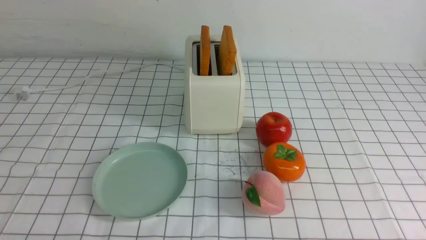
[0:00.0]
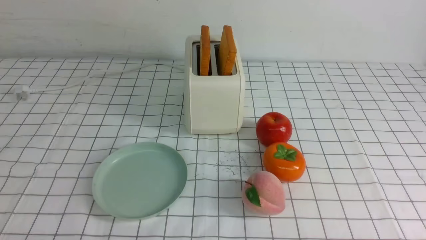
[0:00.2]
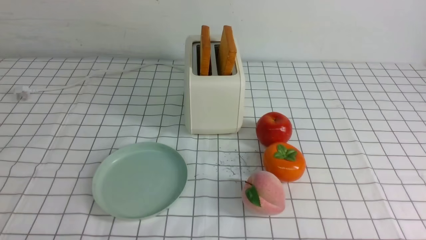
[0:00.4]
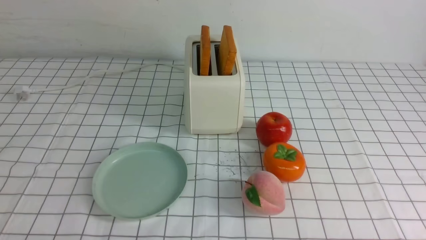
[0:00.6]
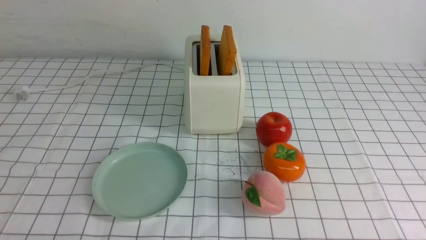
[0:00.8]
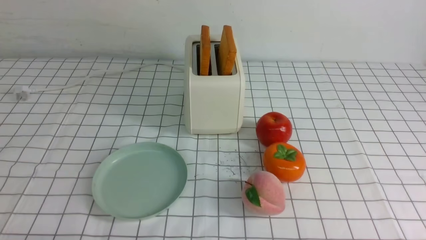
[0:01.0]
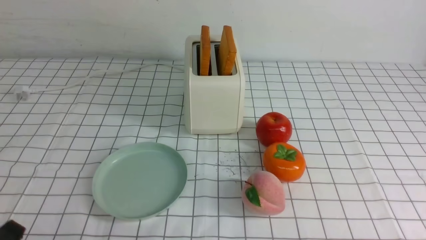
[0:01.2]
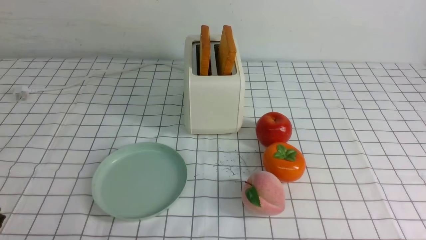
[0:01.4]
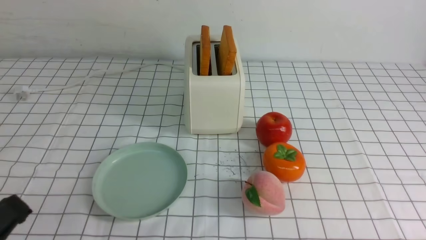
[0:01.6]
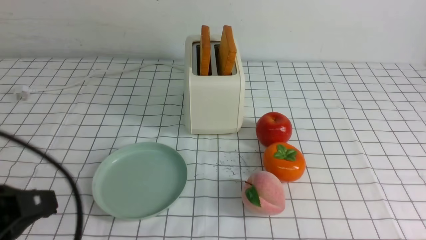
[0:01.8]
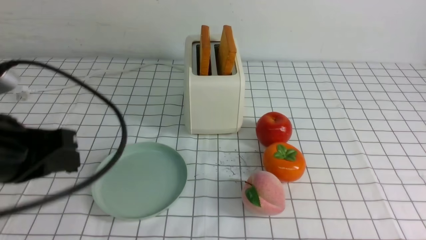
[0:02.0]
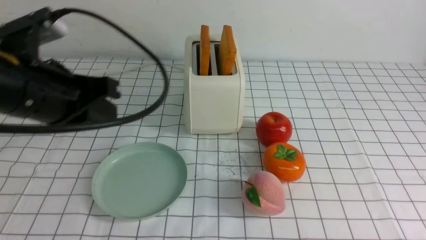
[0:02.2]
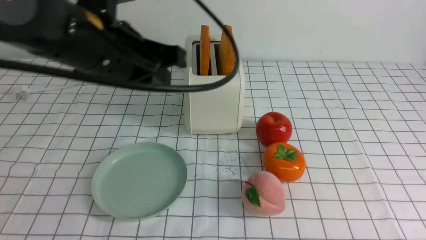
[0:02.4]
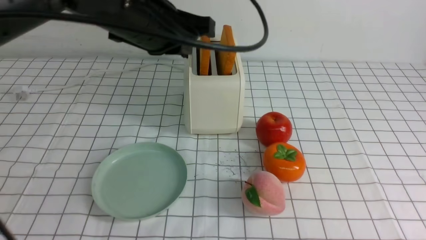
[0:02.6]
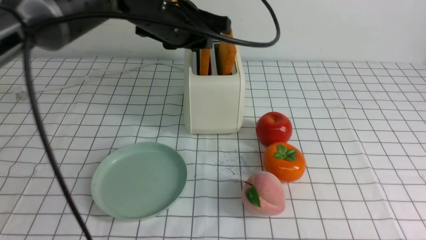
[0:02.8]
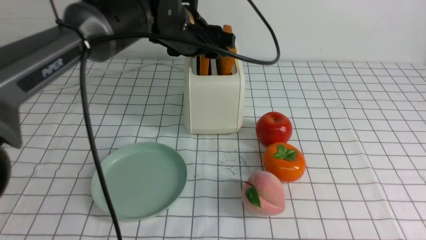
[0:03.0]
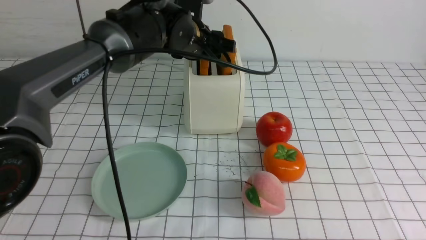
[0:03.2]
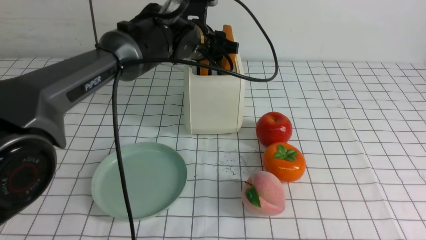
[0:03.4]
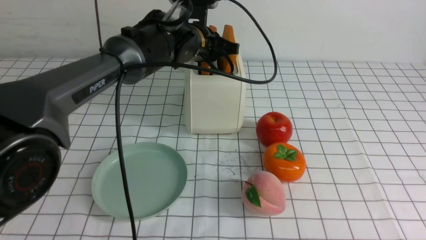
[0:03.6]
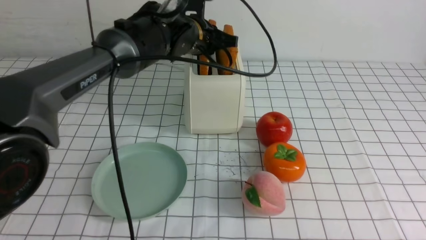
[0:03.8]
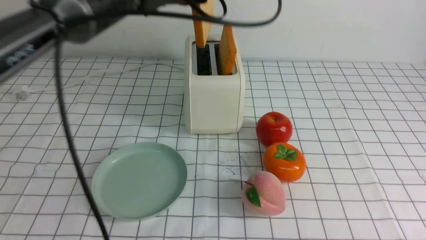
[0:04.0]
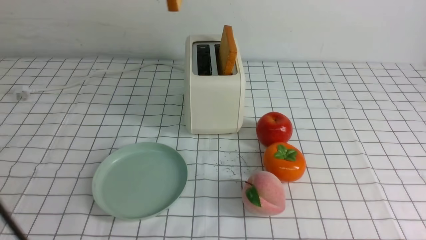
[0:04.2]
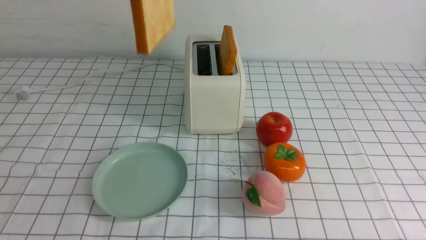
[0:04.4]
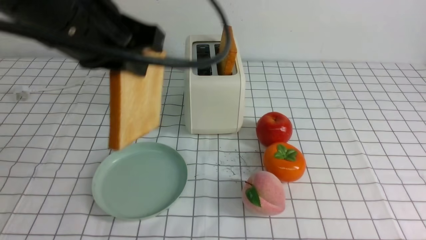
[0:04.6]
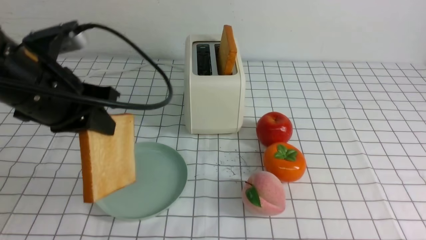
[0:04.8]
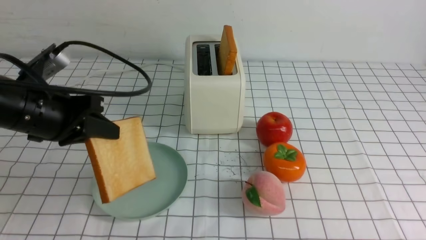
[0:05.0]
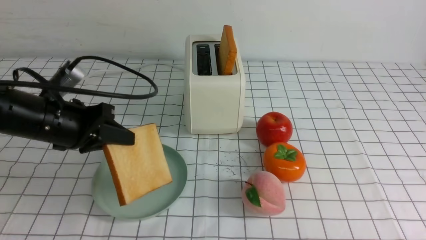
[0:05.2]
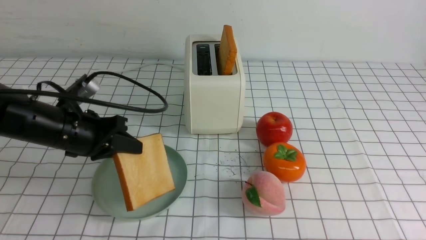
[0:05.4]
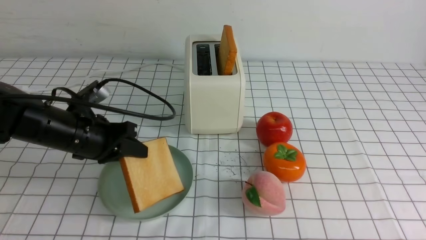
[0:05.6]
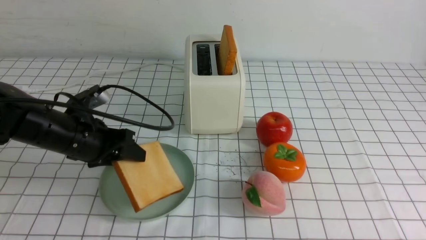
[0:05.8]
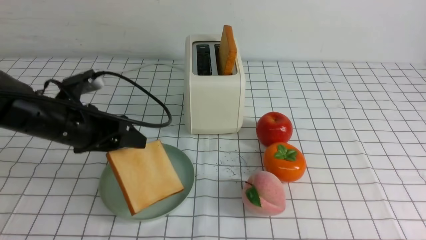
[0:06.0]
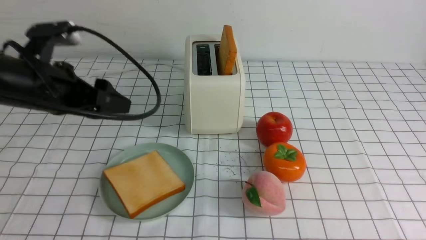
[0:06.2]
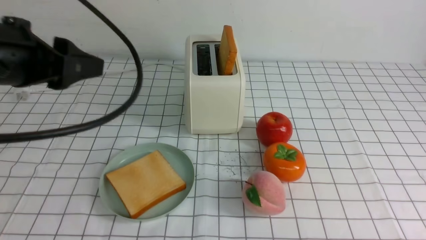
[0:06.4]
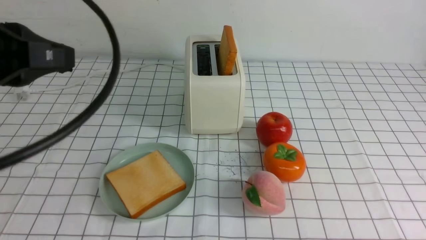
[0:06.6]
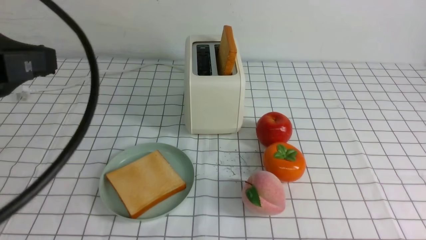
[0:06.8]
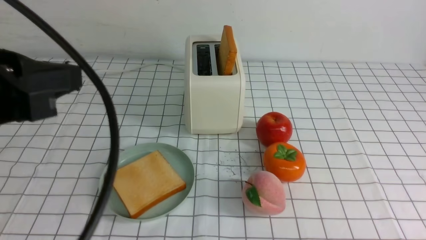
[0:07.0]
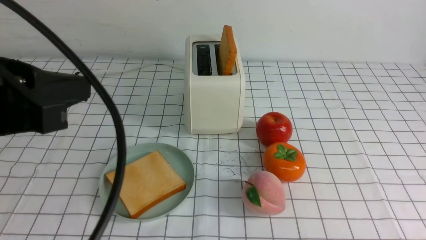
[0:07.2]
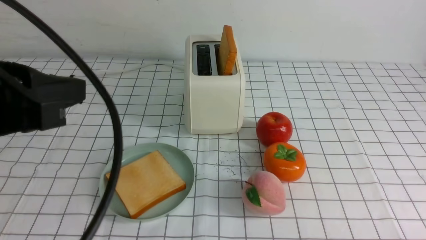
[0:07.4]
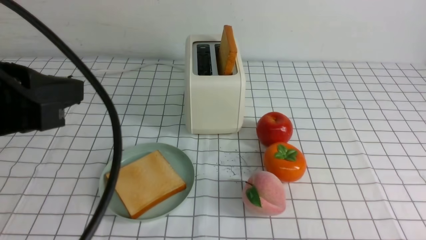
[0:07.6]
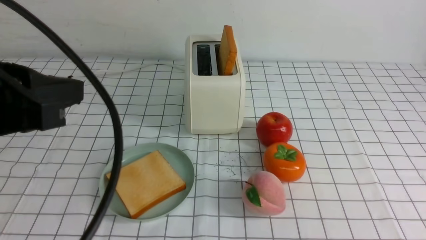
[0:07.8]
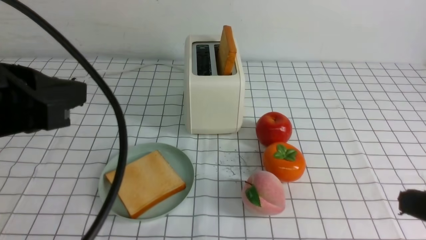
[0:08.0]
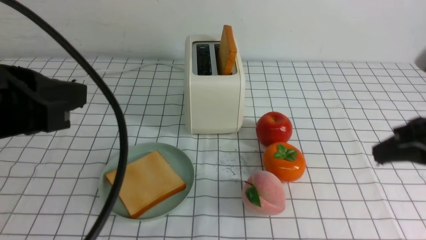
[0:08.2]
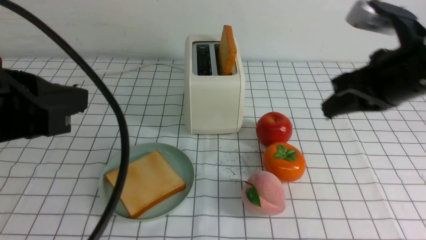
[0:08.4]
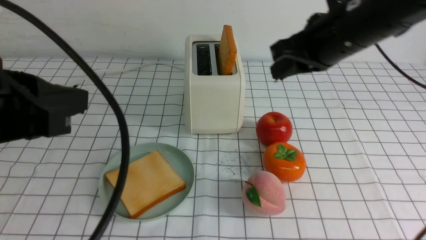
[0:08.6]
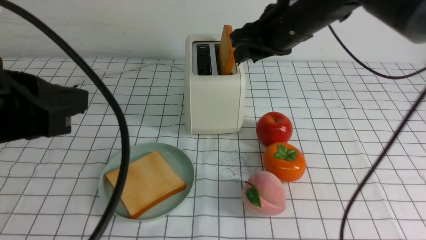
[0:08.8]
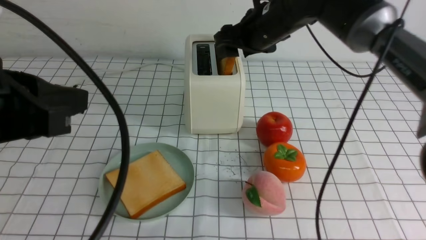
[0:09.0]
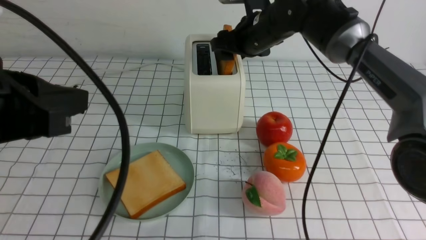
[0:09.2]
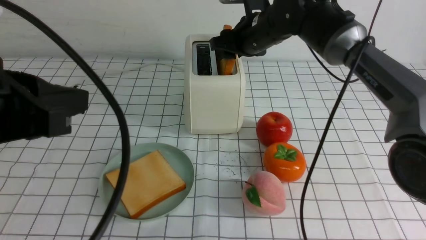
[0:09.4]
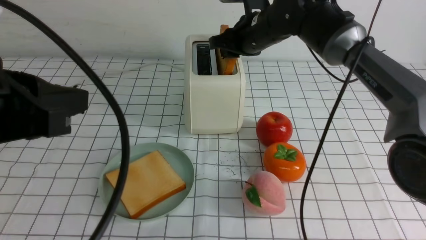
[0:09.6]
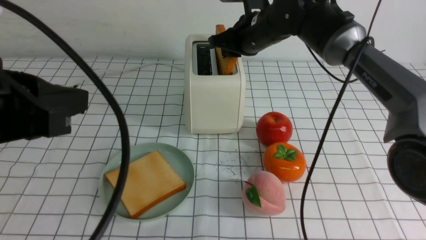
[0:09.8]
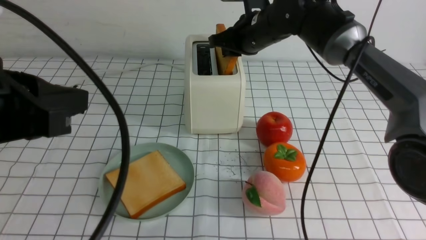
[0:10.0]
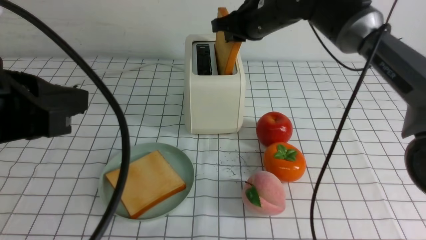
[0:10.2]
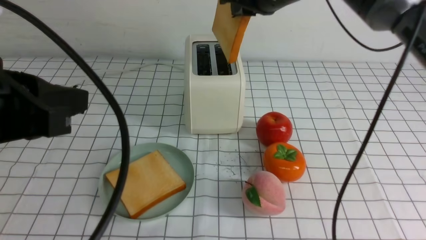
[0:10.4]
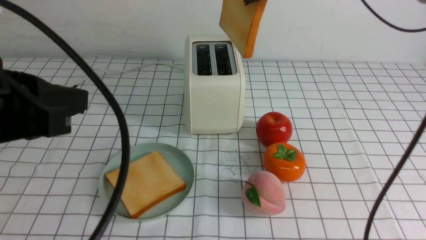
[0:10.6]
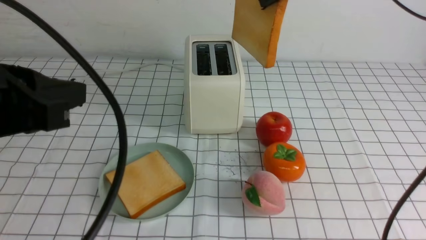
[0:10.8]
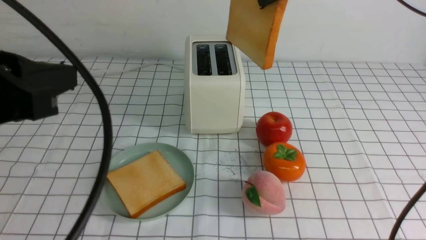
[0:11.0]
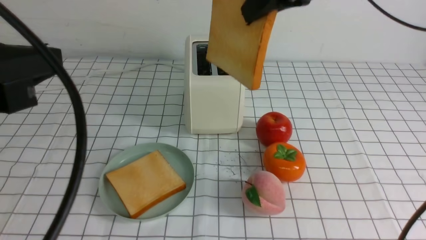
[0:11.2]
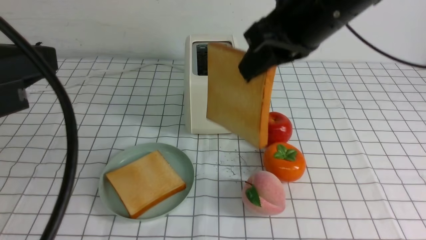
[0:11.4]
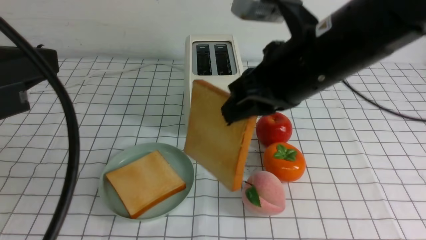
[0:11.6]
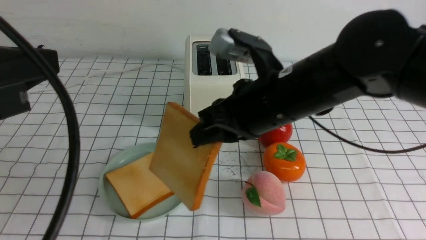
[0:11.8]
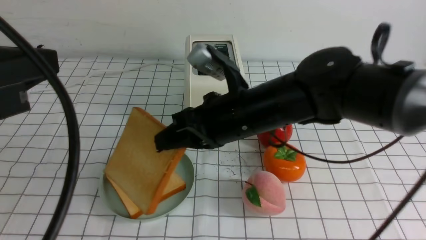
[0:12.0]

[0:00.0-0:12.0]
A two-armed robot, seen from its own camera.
Task of the whole recording: take toasted bread from bread machine on white checkered table place on plate.
Step, 0:00.0 to 0:03.8: use the left arm to take out a slice of bread.
Step, 0:04.0 to 0:06.2: use the left arm to put a slice of bread into the empty plate.
Step, 0:06.4 to 0:10.2: use the right arm to take out a slice of bread.
0:00.0 to 0:01.6: The left gripper heads upward, covering roughly 10 cm, and closes its fingers.
0:01.6 to 0:03.0: The left gripper heads forward and to the right, covering some 40 cm, and opens up.
0:03.0 to 0:04.4: The left gripper heads backward, upward and to the left, covering some 20 cm, and closes its fingers.
0:04.4 to 0:06.0: The left gripper moves downward and to the left, roughly 25 cm, and opens up.
0:06.0 to 0:07.6: The left gripper goes roughly 20 cm backward and upward, and closes up.
0:07.6 to 0:09.0: The right gripper shifts roughly 40 cm forward and to the left, and opens its fingers.
0:09.0 to 0:10.4: The right gripper moves upward, roughly 5 cm, and closes up.
0:10.4 to 0:12.0: The right gripper goes about 20 cm backward, downward and to the left.

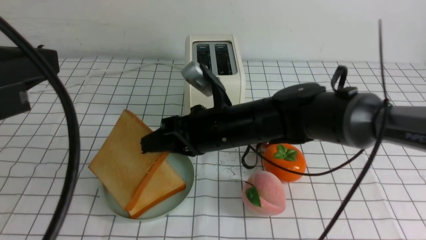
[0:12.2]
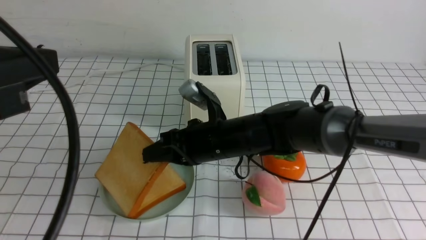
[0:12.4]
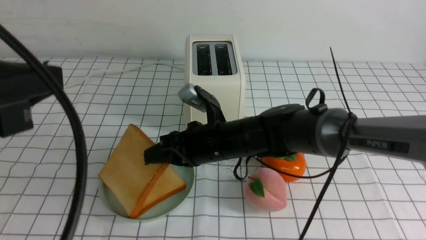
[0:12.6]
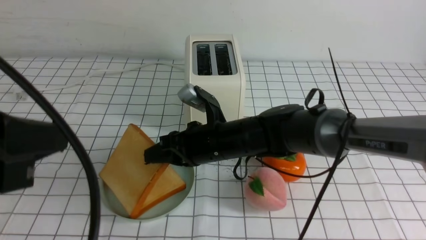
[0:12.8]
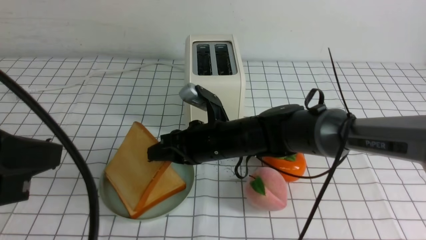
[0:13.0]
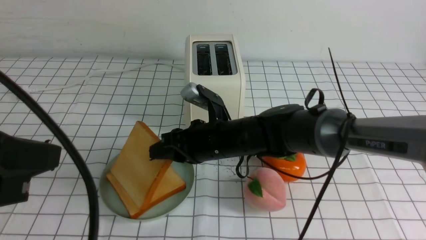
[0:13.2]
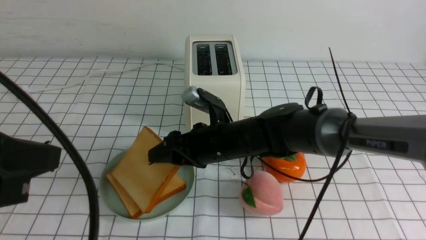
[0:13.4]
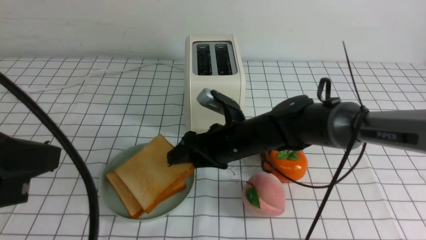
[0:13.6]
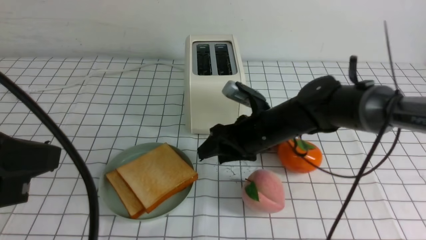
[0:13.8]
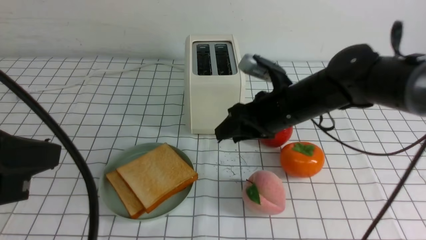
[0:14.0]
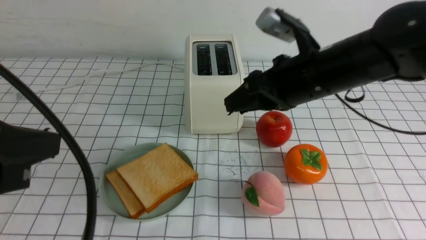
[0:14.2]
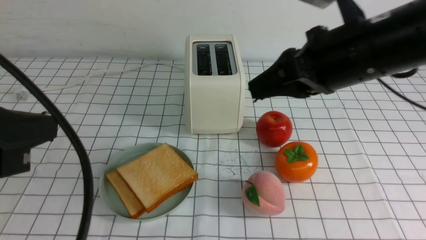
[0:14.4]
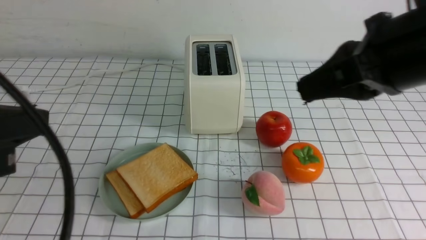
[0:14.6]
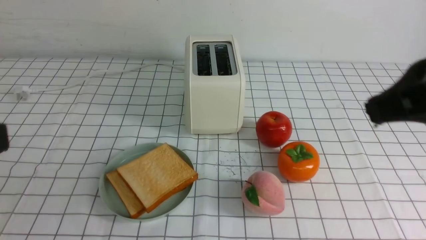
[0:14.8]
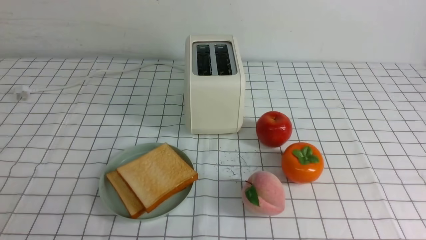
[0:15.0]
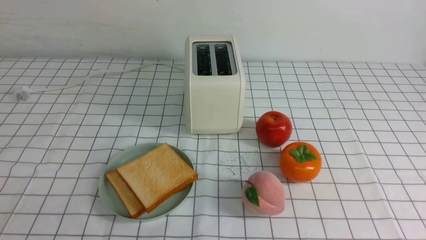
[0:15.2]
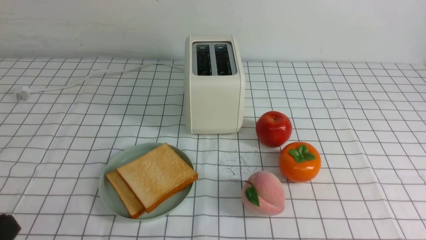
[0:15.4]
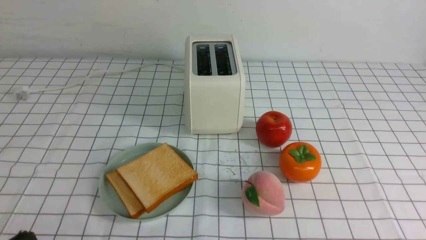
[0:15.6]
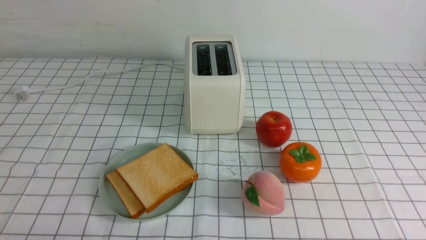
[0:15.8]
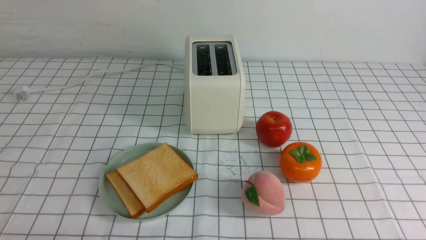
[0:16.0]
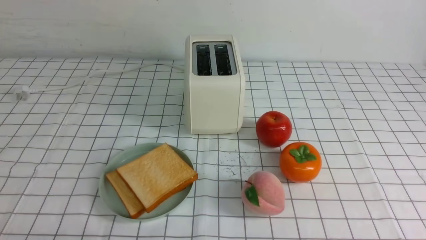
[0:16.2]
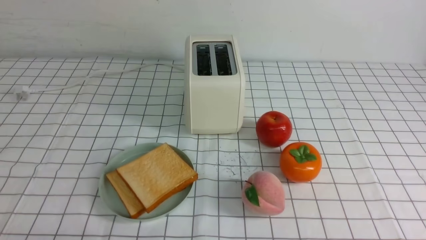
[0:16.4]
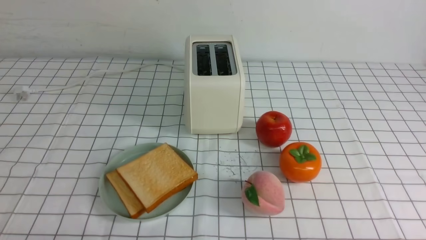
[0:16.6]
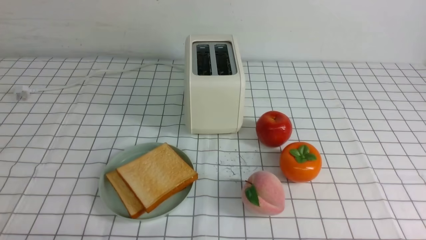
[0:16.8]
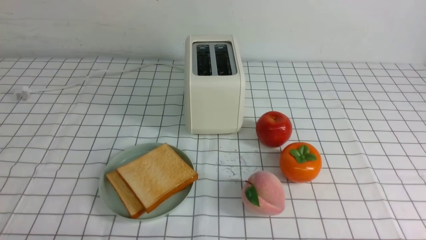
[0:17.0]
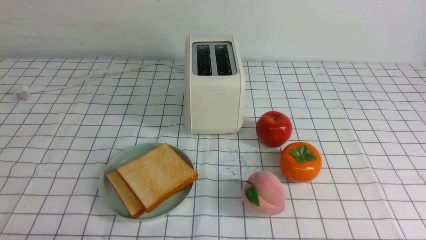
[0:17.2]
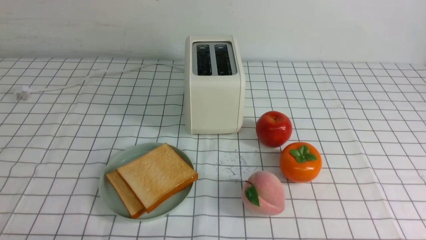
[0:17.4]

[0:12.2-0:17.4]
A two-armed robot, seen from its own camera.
Task of the whole recording: take toasted bread from bread machine on white checkered table place on plate.
0:12.2 to 0:14.0: The right gripper moves to the right, about 10 cm, and opens.
0:14.0 to 0:15.6: The left gripper travels downward and backward by approximately 20 cm, while the right gripper heads backward and to the right, covering roughly 35 cm, and closes up.
